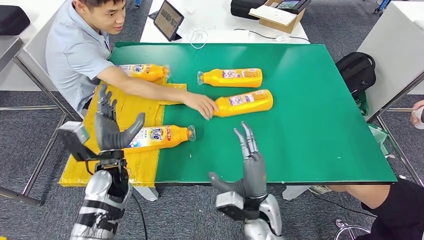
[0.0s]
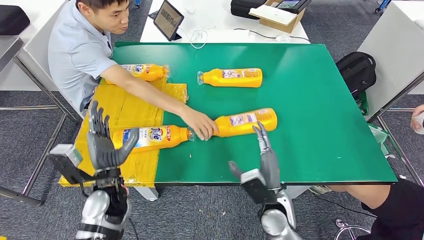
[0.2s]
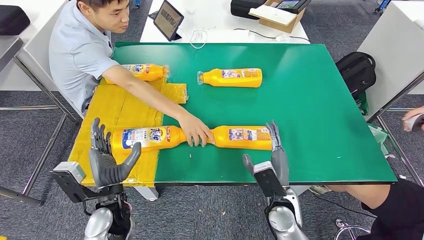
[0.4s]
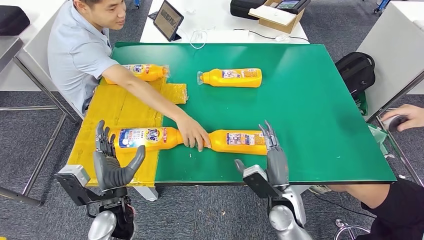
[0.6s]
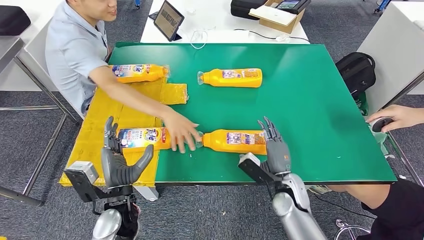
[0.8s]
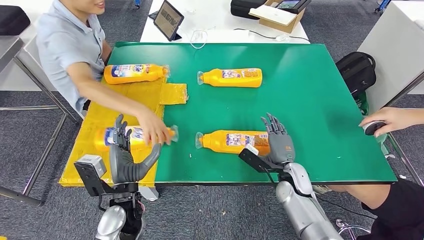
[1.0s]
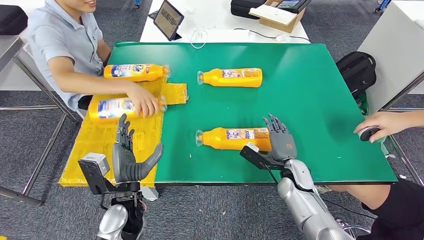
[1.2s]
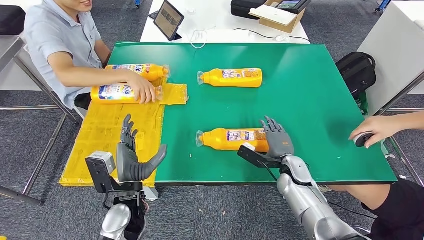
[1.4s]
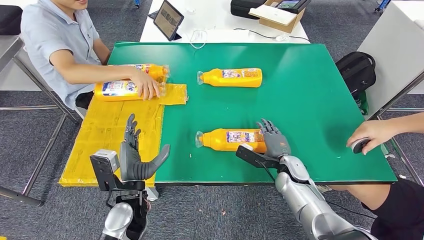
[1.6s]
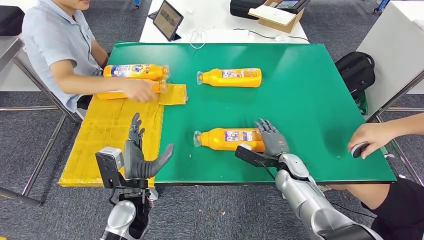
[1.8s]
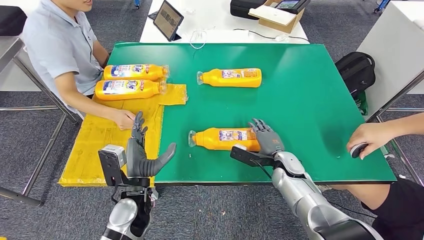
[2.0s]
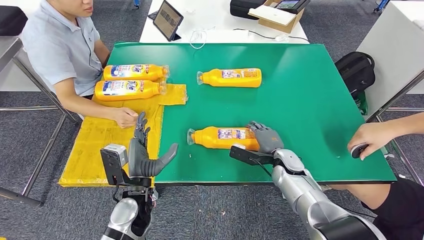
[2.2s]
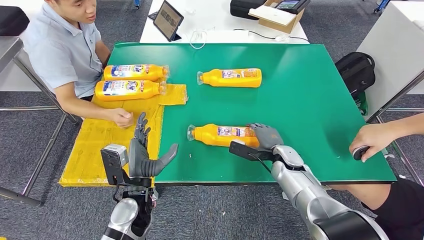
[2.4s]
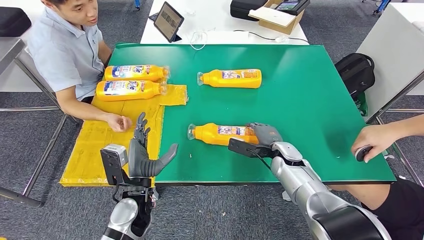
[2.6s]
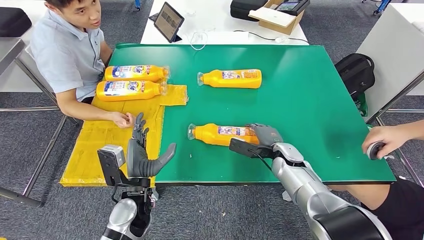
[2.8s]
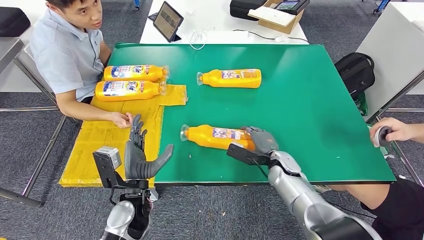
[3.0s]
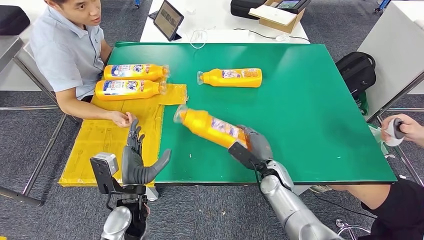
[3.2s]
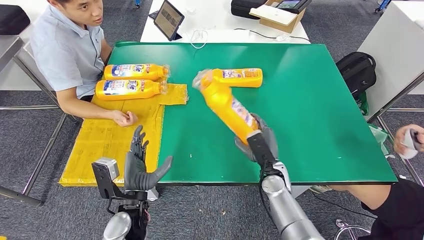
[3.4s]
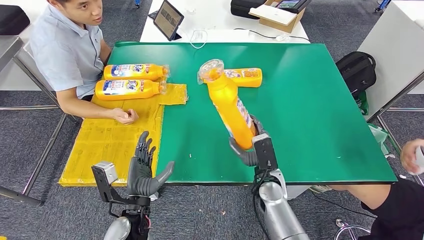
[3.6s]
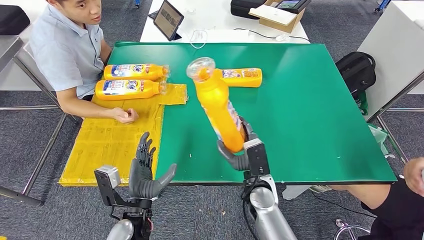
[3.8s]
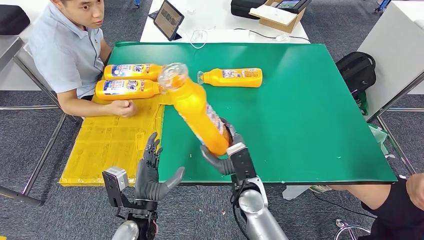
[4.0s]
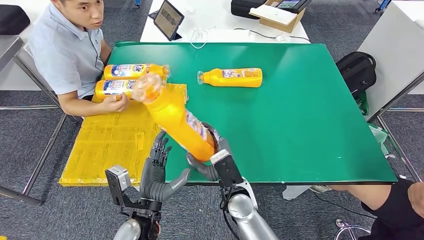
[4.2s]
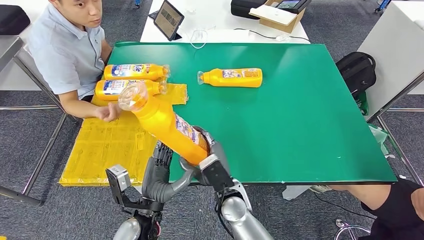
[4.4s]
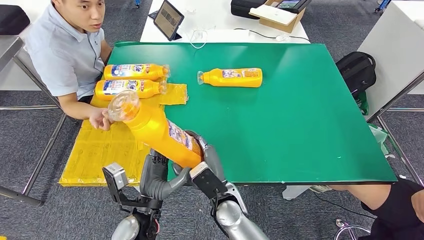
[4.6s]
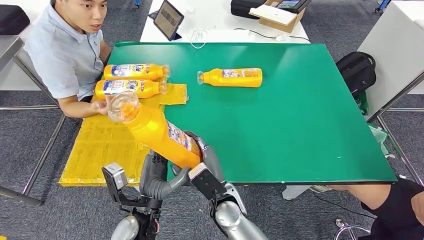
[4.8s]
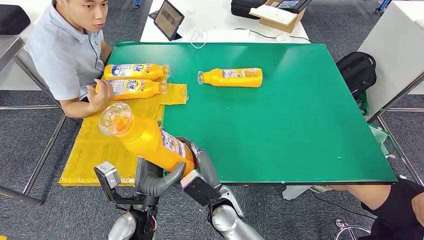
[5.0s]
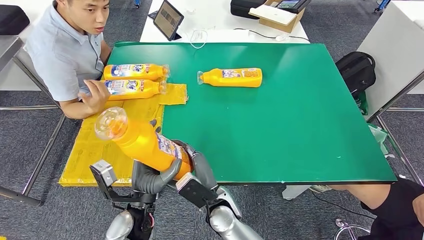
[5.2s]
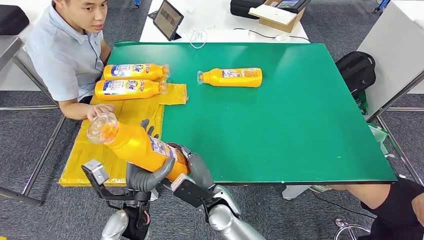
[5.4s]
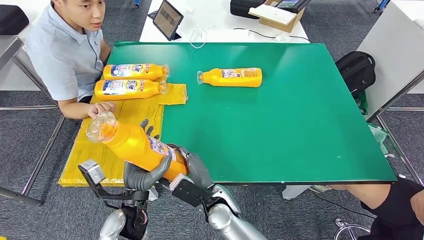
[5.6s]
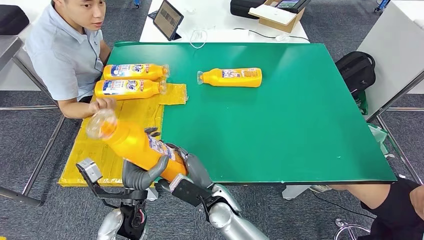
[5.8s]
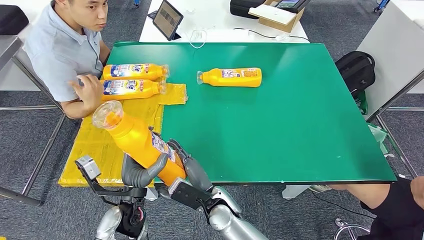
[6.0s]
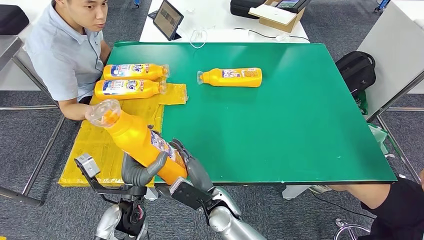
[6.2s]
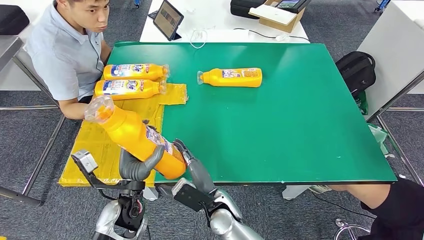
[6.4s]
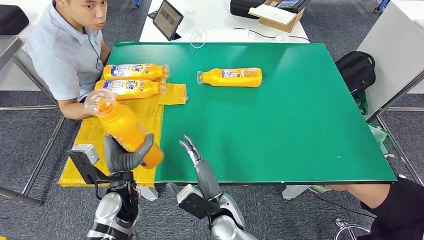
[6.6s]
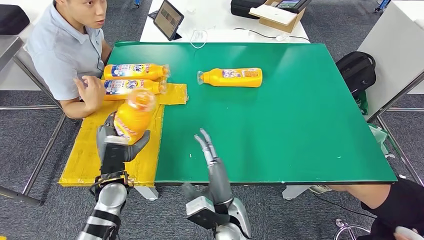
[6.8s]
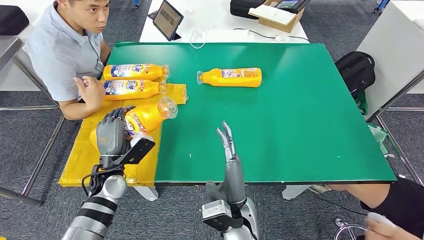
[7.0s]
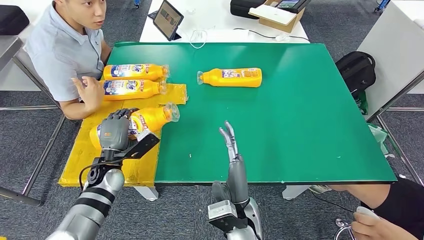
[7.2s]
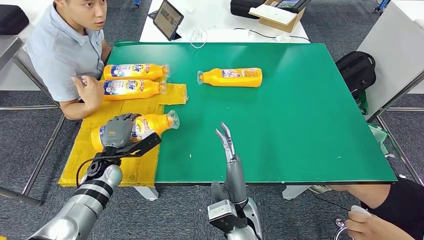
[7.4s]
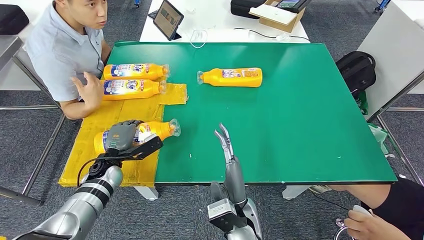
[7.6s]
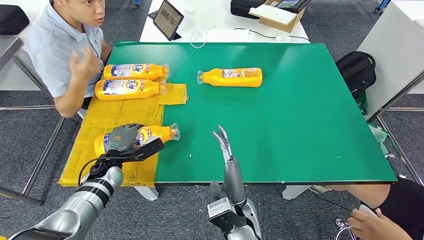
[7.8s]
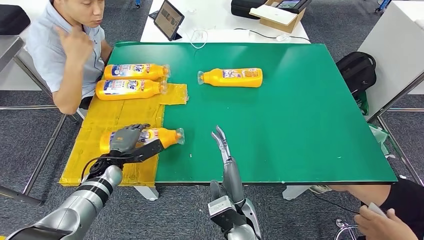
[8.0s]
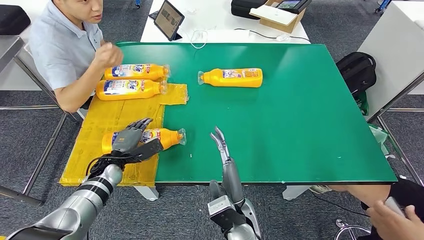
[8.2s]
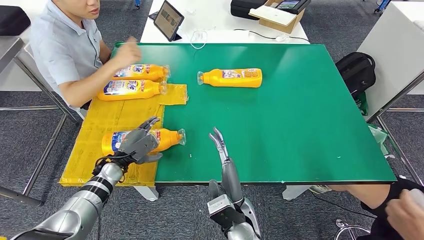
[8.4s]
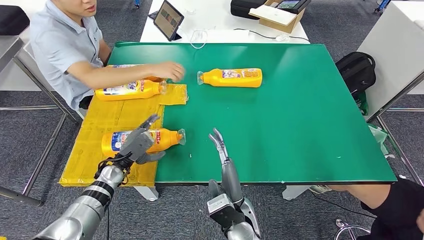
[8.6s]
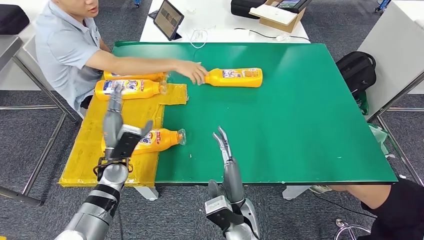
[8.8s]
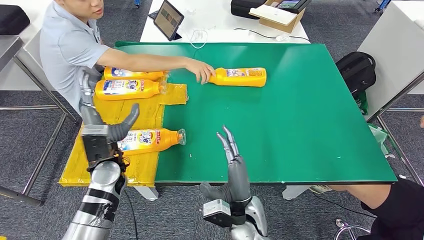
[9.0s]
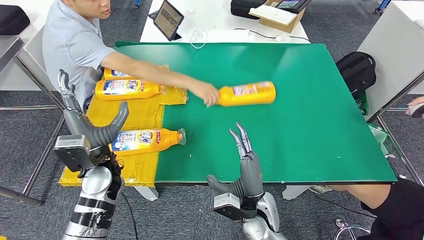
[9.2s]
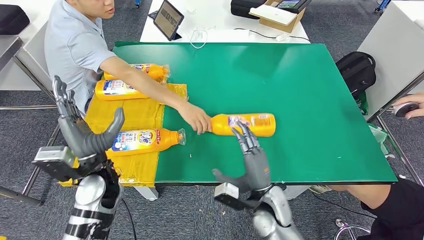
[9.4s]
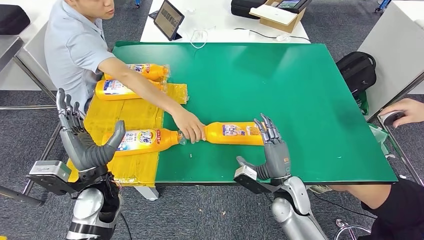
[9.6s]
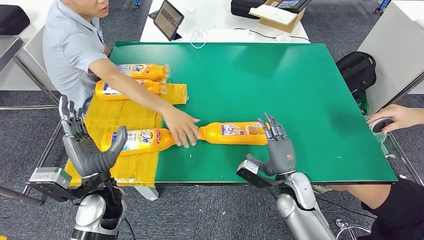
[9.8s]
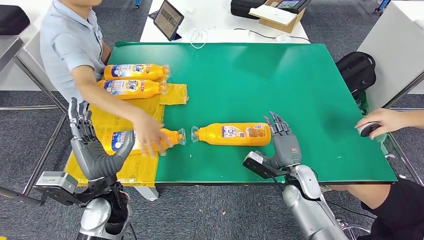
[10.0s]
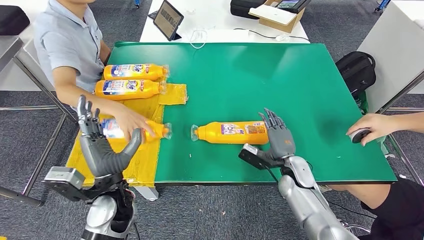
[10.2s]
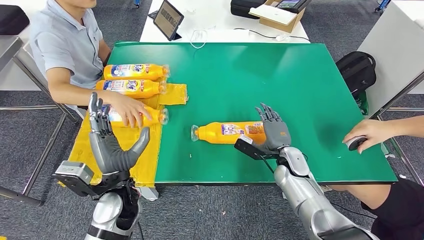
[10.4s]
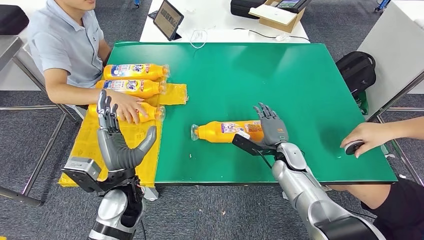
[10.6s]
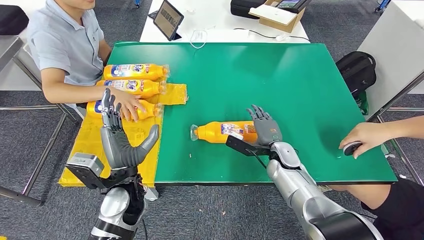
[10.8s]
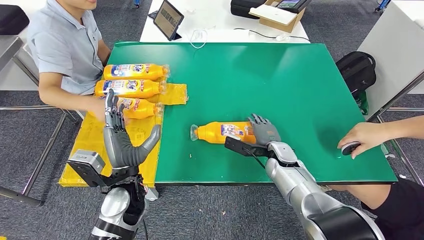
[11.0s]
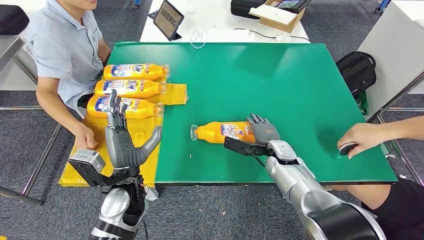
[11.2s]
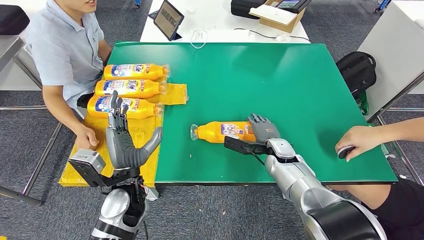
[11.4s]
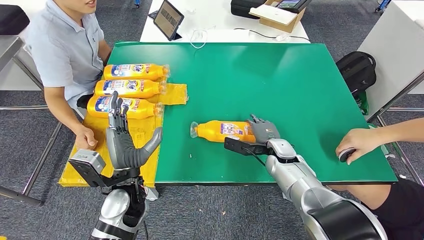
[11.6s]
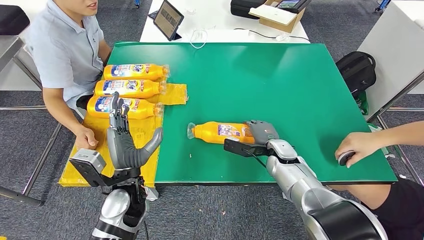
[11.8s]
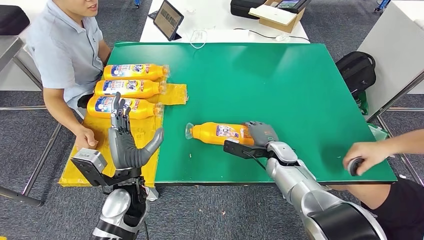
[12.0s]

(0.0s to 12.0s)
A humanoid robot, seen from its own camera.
Step, 1.0s - 4.2s: Pick up the fast-moving consumer goods bottle from the table.
Step, 4.4s - 8.2s: Flip the fast-moving consumer goods bottle to the front side.
1.6s - 3.0s: The hands move only a little.
6.0s - 7.6s: The right hand goes some 5 cm to the right. The left hand is displaced forward and to the left by approximately 15 cm.
7.6s - 9.0s: The left hand travels upward by some 10 cm.

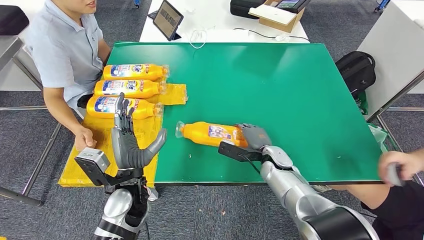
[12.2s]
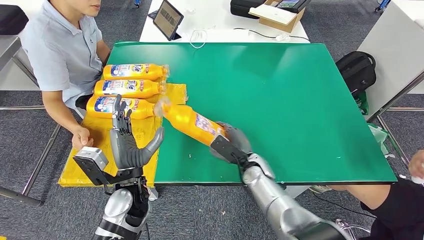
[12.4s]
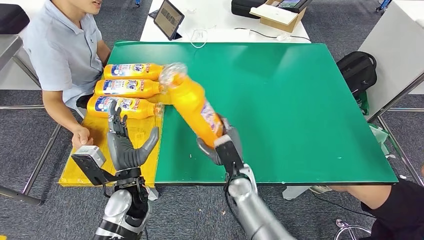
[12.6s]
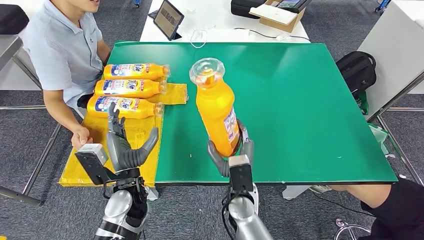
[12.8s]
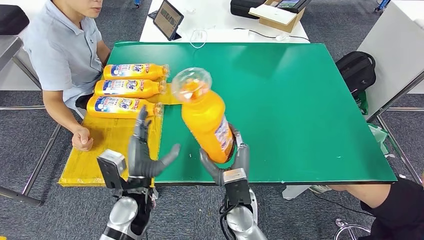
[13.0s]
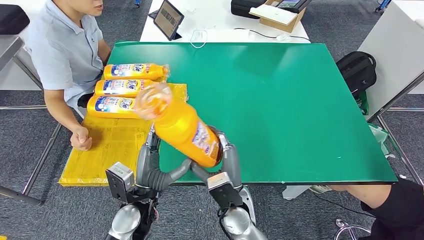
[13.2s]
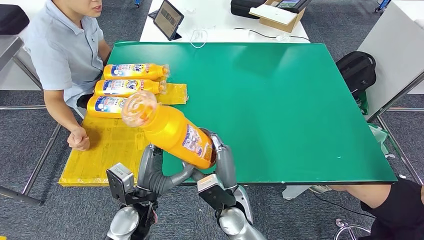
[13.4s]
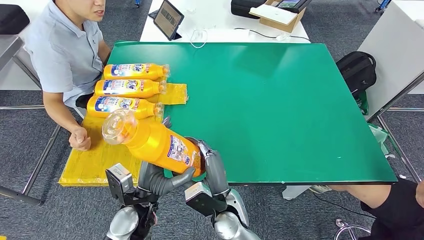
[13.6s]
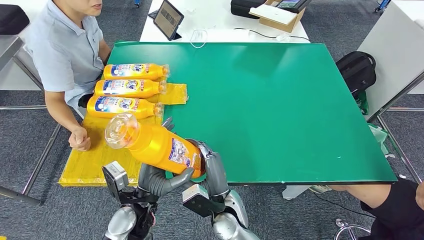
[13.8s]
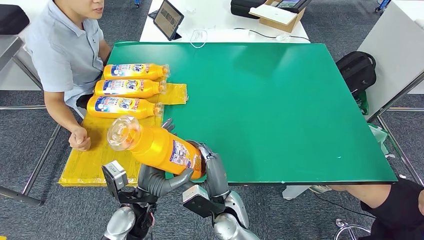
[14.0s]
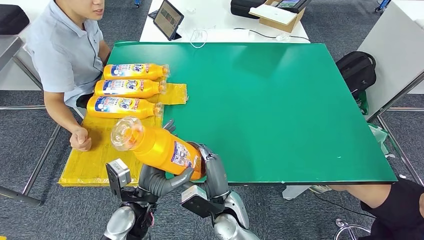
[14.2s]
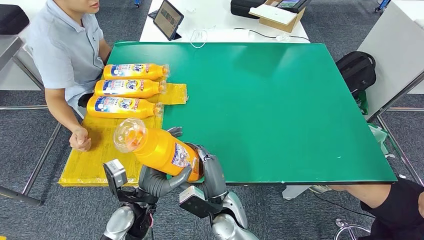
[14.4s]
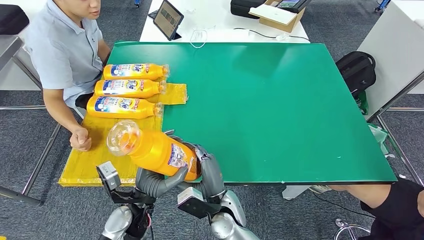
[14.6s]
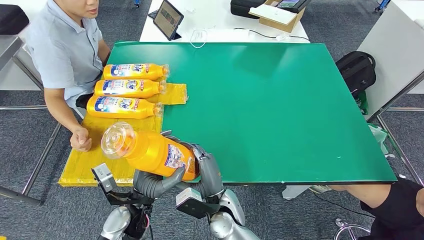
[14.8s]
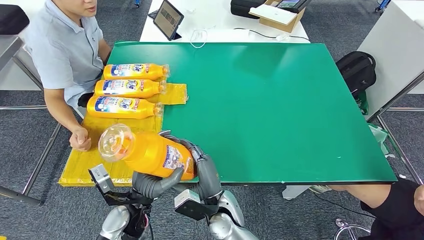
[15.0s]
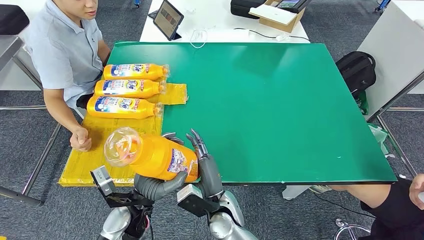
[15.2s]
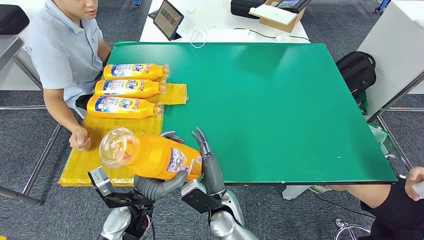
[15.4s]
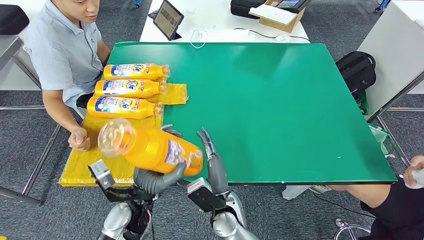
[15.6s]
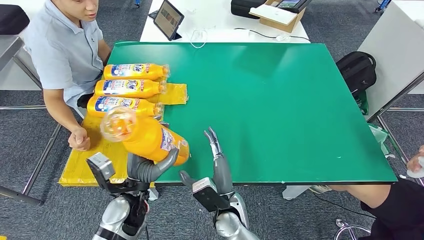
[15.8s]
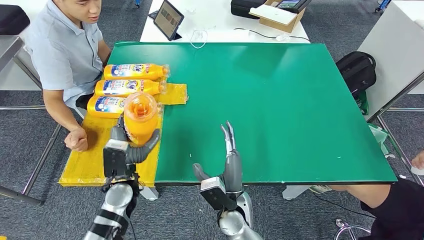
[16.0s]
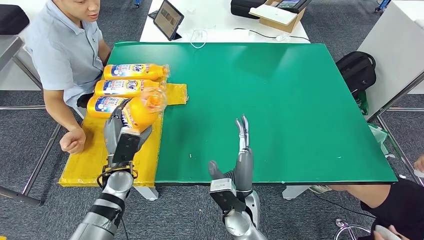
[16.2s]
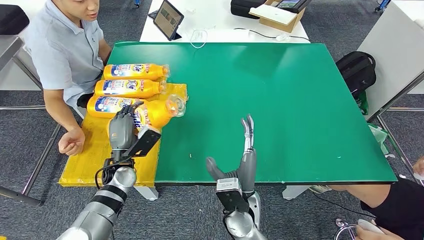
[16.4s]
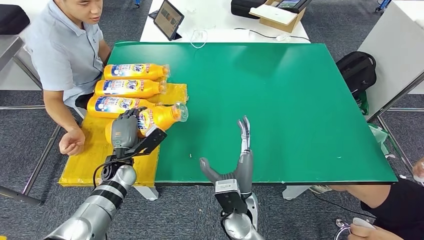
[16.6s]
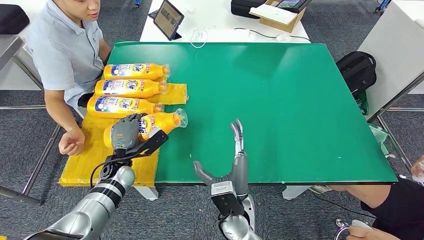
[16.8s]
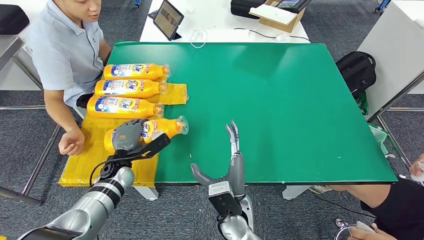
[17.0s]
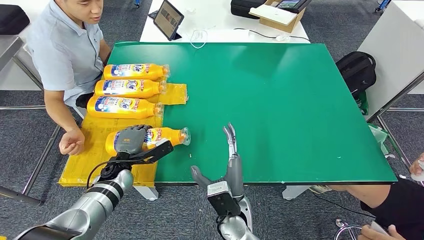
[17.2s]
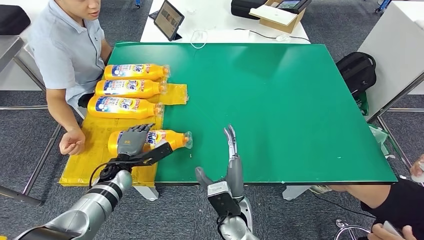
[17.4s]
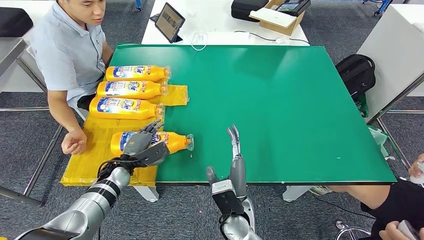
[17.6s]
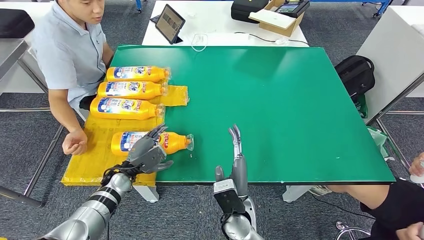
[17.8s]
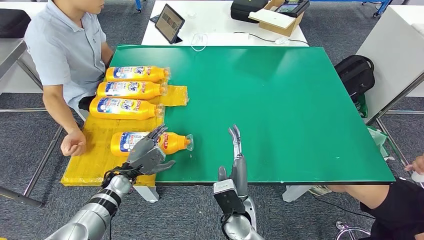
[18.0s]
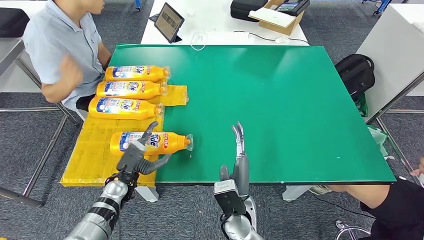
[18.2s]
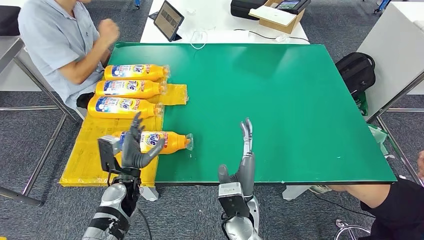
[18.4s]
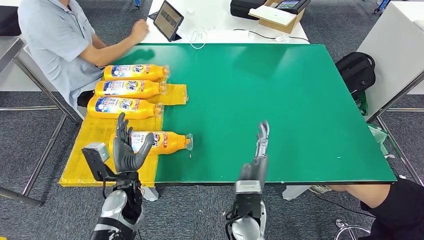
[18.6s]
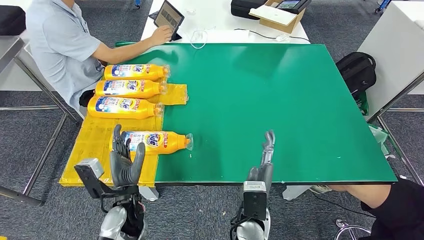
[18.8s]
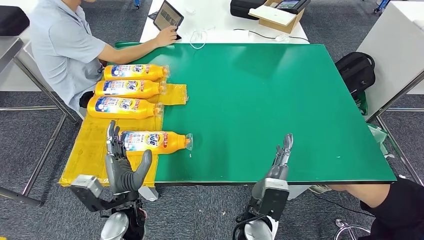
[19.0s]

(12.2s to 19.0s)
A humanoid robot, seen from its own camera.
Step, 12.2s - 14.0s: Pick up the fast-moving consumer goods bottle from the table.
Step, 14.2s - 19.0s: Flip the fast-moving consumer goods bottle to the front side.
13.6s - 15.0s: The hands make only small movements.
15.0s - 16.2s: The right hand ends up approximately 5 cm from where it was, while the left hand is displaced forward and to the left by approximately 10 cm.
